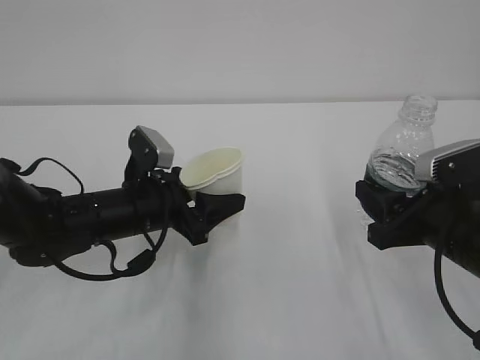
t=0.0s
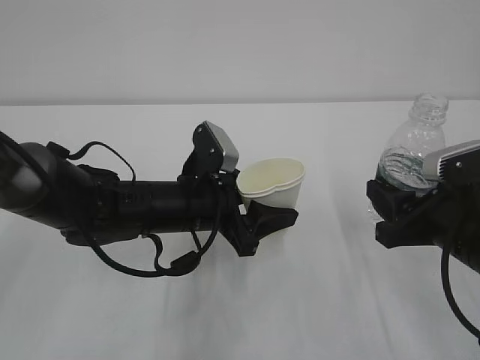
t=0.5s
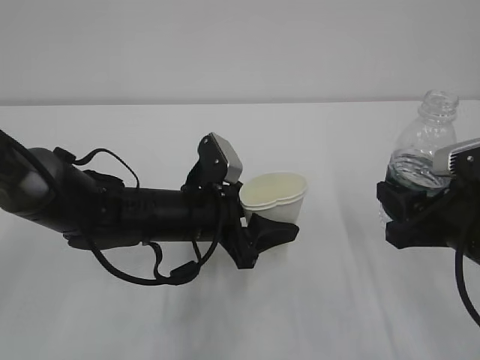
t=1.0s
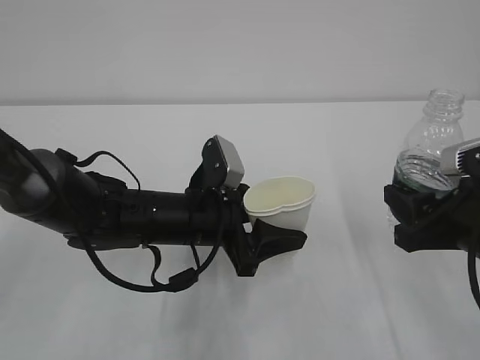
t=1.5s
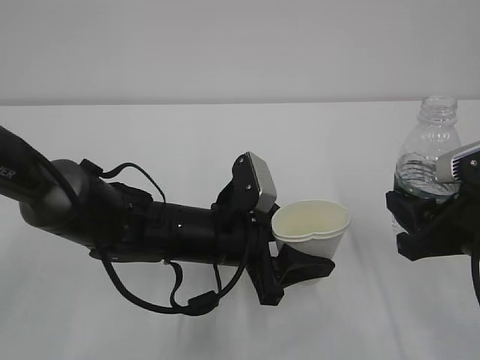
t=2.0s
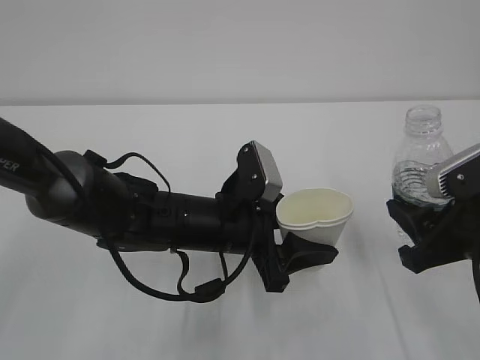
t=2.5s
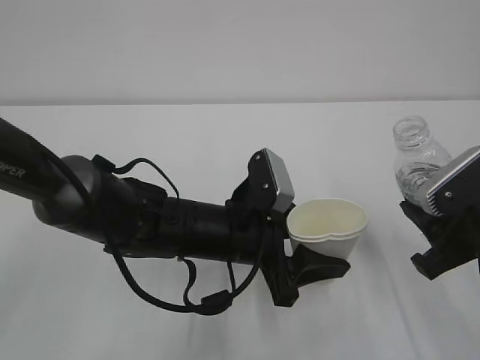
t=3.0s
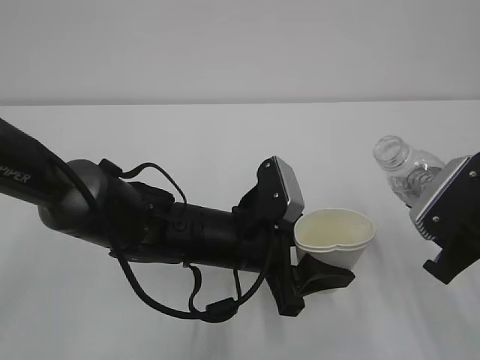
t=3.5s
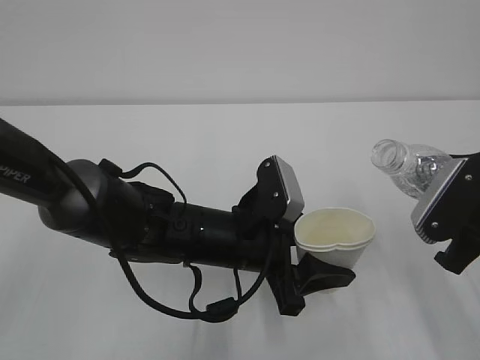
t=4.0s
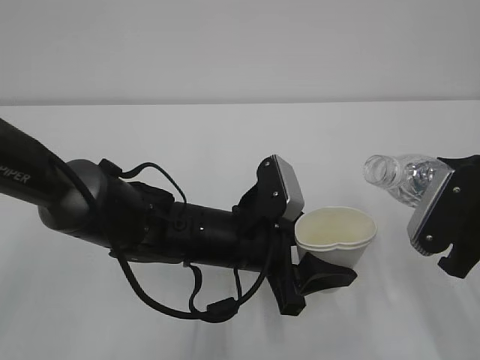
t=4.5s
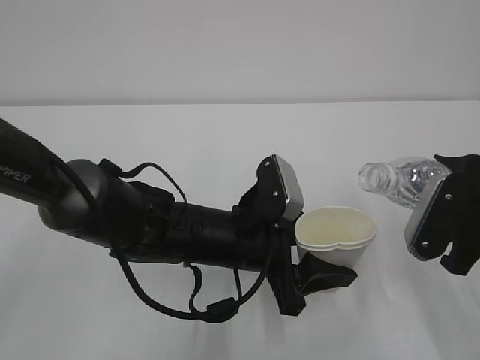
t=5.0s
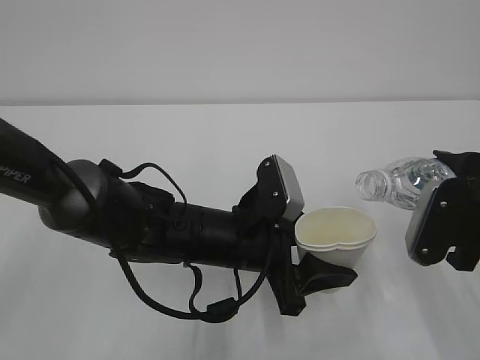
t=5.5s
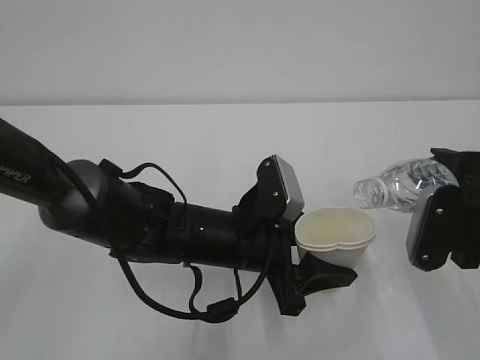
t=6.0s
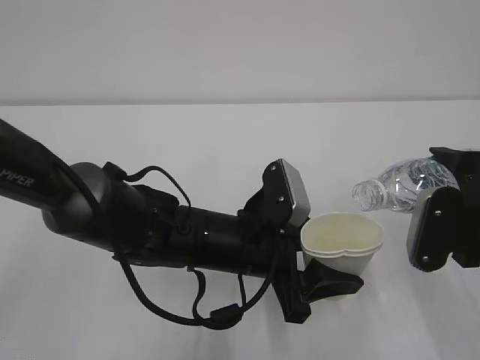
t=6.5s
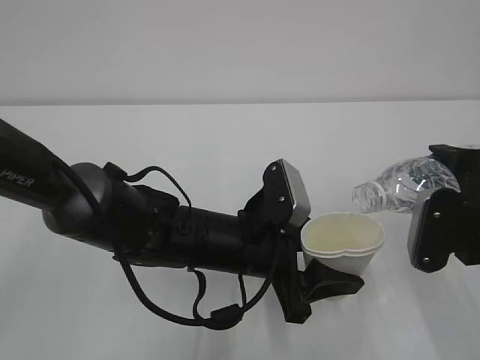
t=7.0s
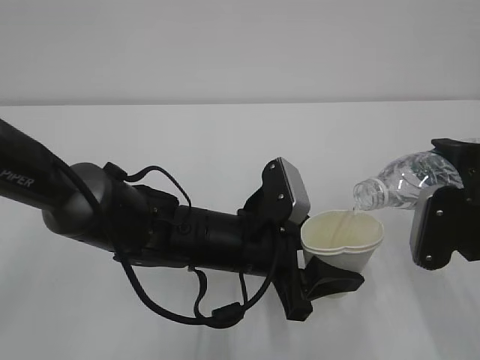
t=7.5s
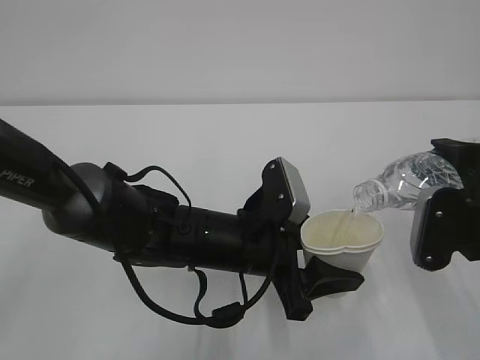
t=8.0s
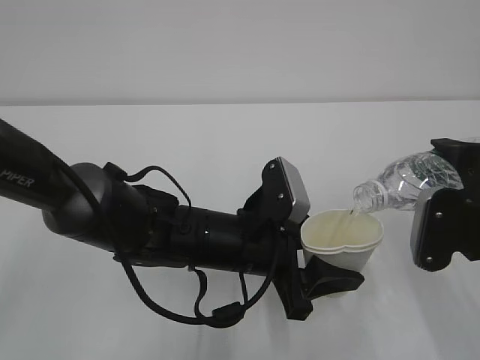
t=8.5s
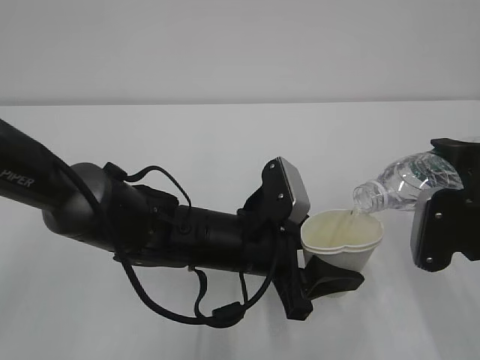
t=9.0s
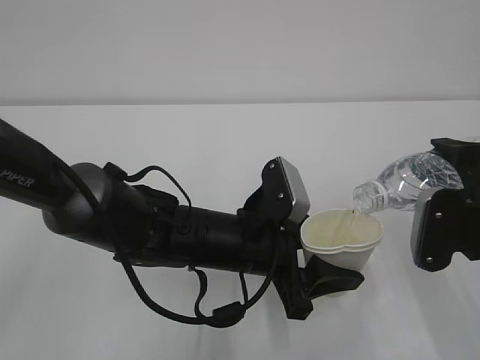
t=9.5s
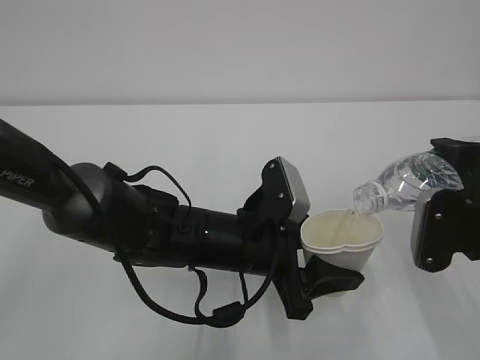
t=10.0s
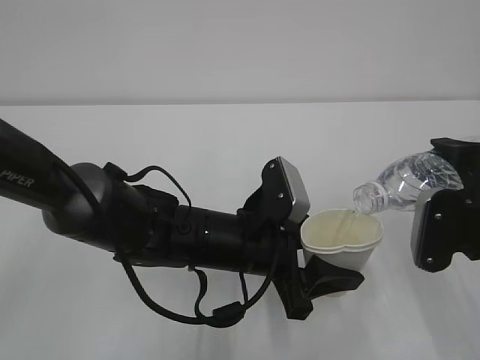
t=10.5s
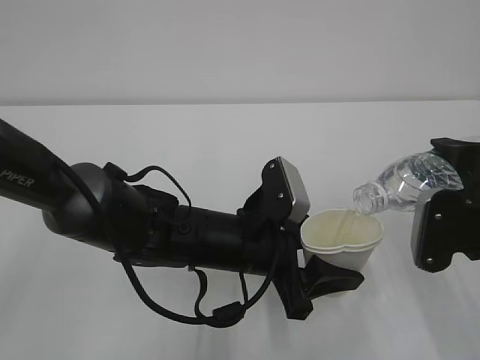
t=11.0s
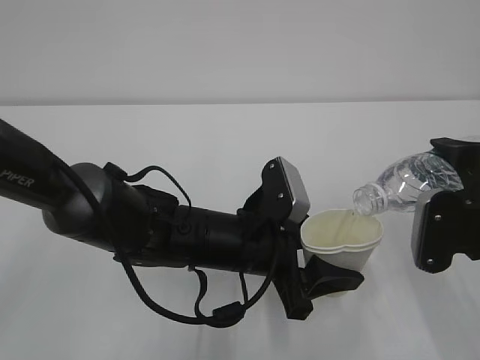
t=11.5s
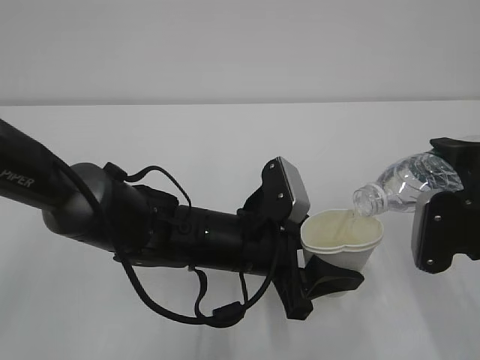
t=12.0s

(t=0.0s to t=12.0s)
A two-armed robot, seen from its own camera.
t=0.0s - t=2.0s: The left gripper is displaced to the right by approximately 10 cm.
t=6.0s - t=8.0s: The grippers move only a little.
t=8.0s - t=12.0s: Both grippers stay about where they are.

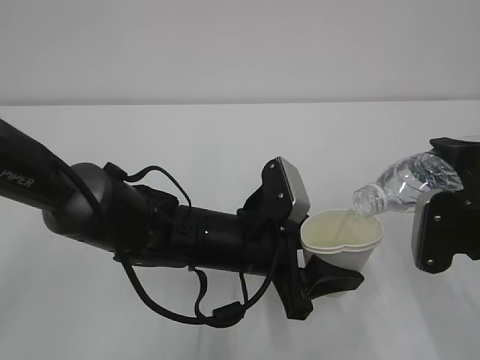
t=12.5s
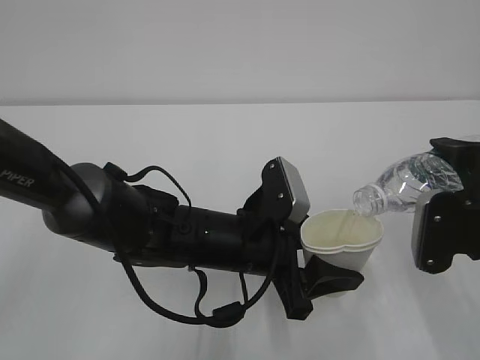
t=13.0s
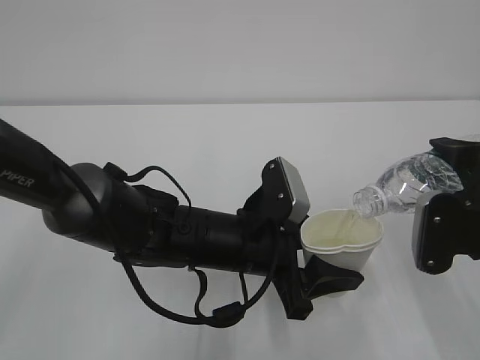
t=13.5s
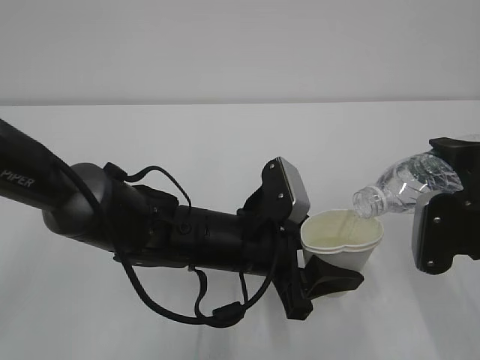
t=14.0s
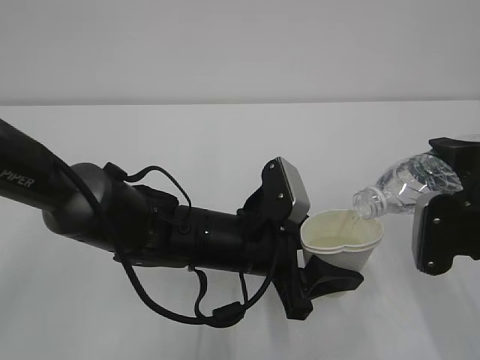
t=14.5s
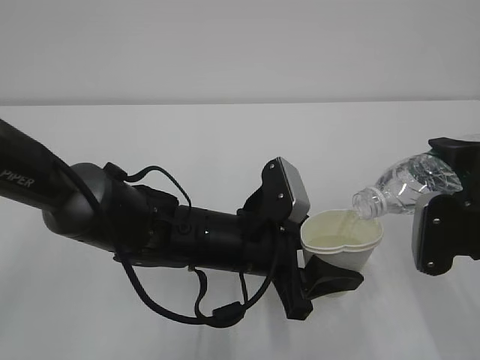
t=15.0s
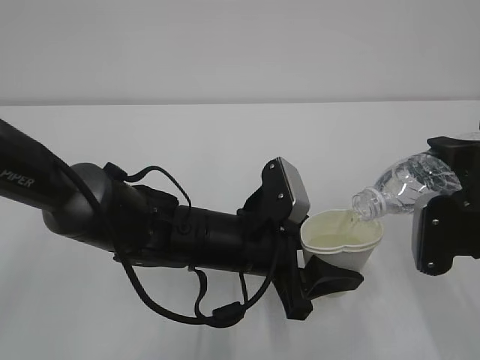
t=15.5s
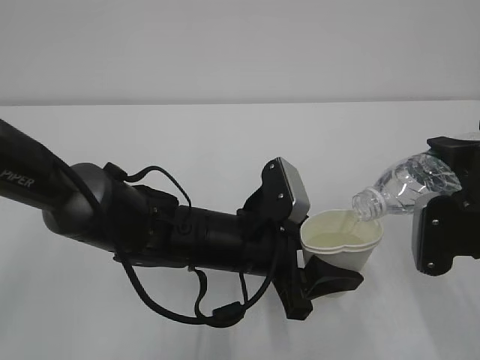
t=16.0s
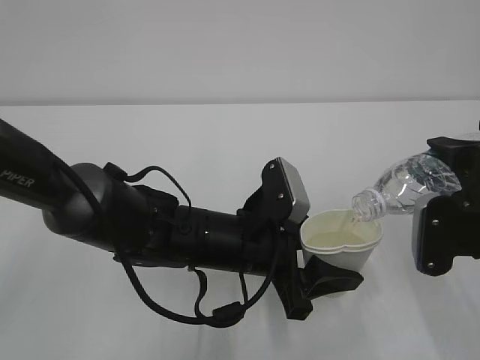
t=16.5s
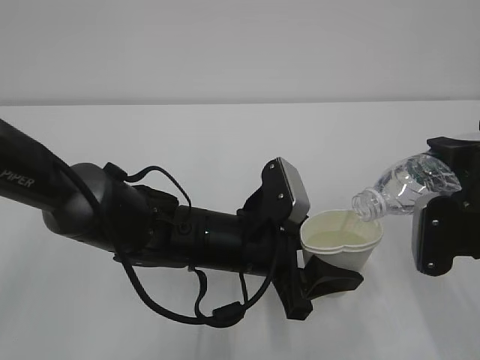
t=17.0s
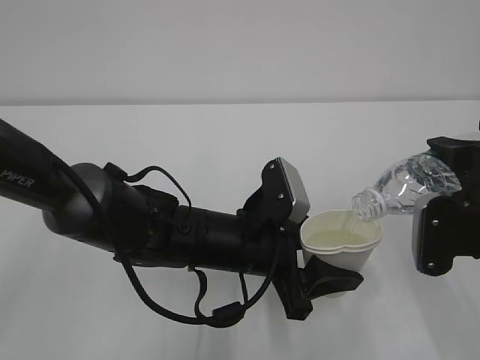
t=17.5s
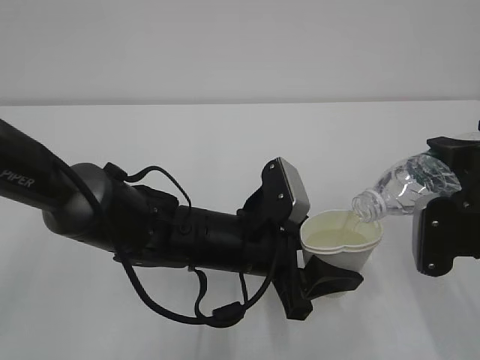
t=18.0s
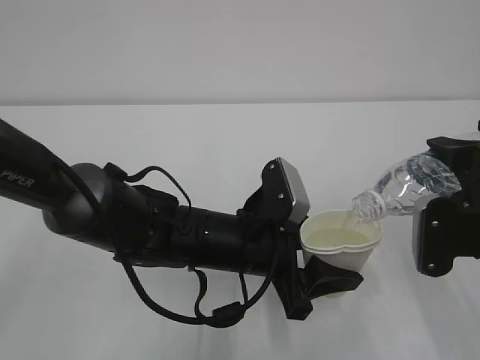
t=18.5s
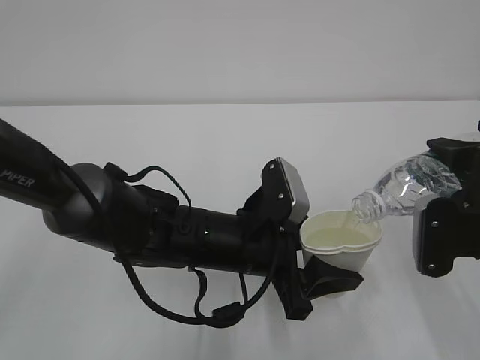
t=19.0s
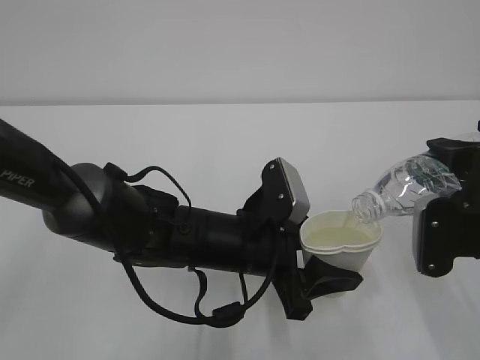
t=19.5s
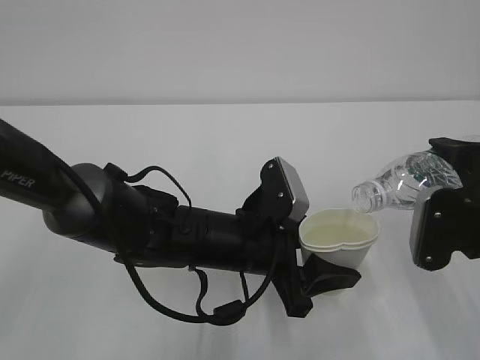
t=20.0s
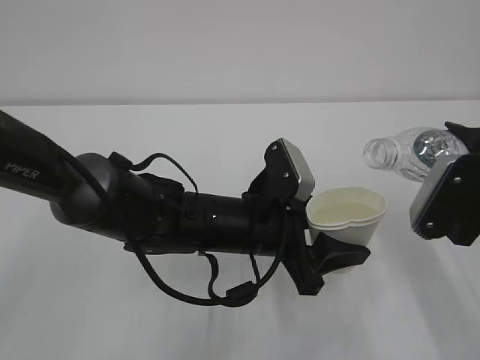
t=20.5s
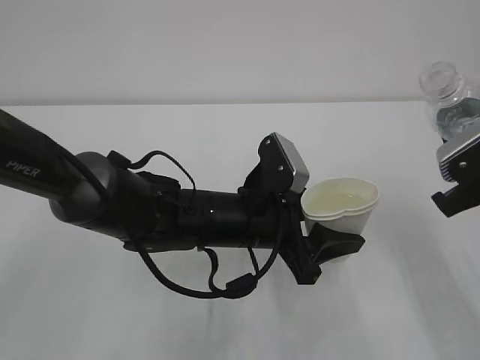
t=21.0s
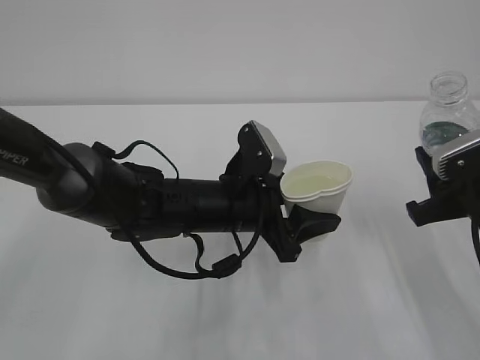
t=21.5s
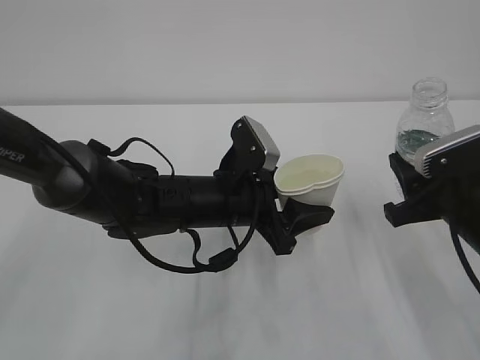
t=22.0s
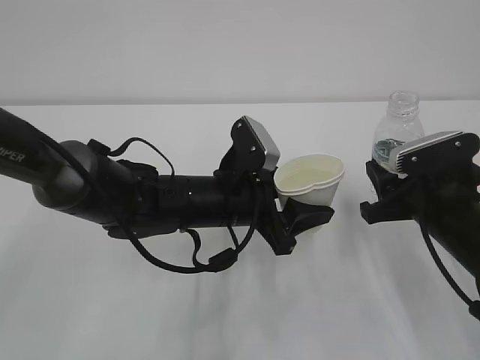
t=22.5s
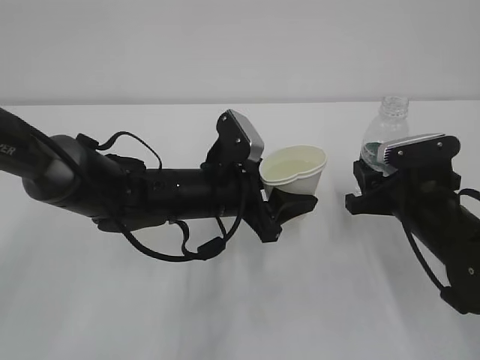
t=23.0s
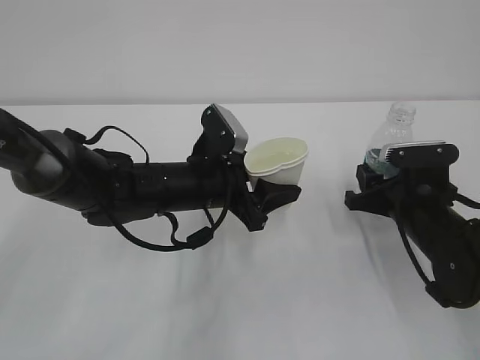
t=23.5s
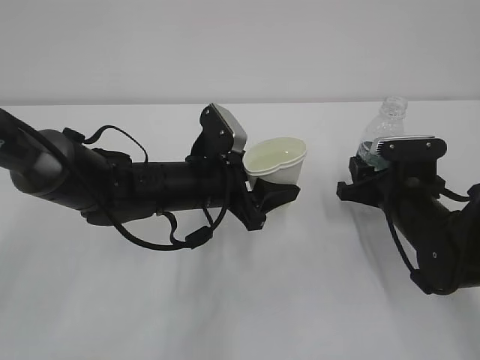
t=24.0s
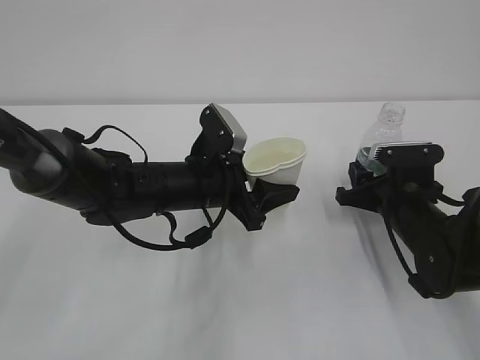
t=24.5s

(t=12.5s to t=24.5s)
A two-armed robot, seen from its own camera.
t=12.5s - t=18.5s: The two grippers keep their place.
t=20.5s - t=22.5s: The right gripper travels downward and forward by some 10 cm.
t=22.5s - t=24.5s: The right gripper moves forward and downward, roughly 10 cm.

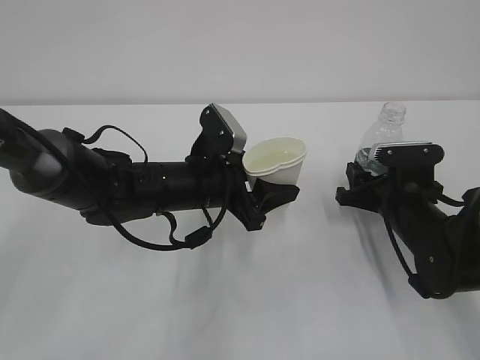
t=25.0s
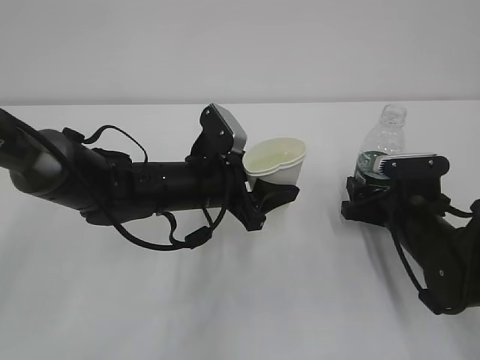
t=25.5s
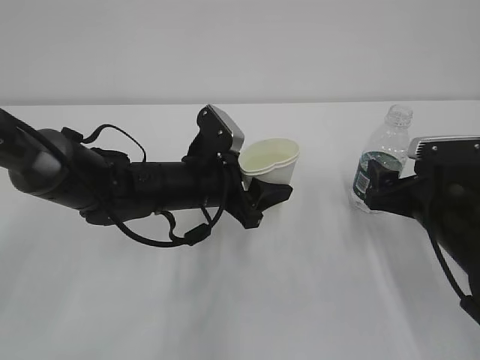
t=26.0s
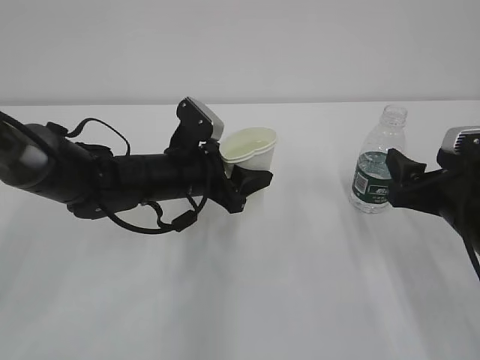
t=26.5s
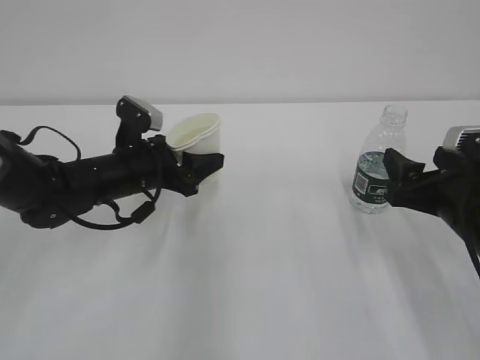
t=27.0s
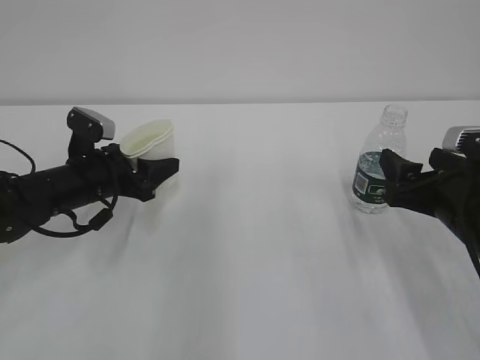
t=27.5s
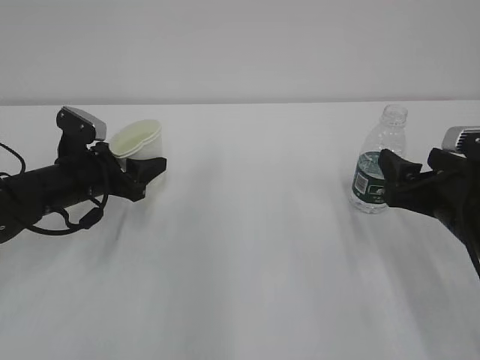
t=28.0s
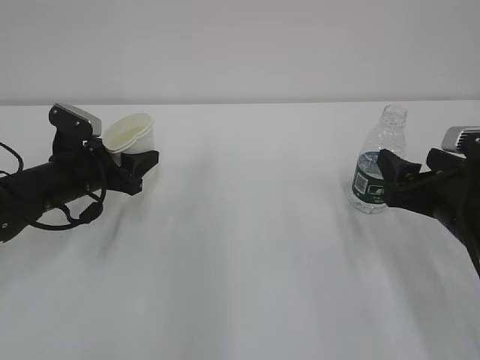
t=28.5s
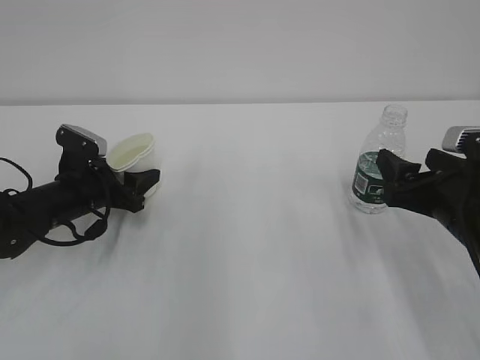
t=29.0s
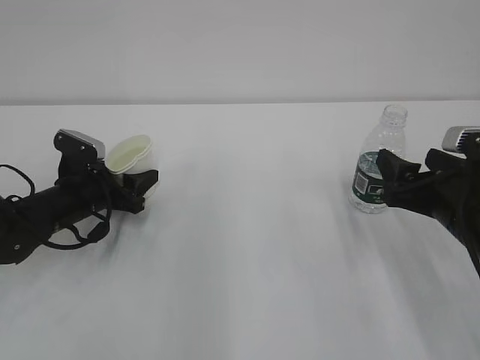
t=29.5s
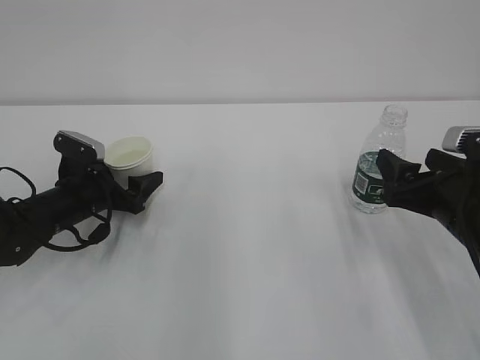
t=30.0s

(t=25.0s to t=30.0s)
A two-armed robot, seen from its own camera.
t=25.0s - t=27.5s: The left gripper is displaced to the left by approximately 15 cm. The right gripper goes some 10 cm backward and upward, and opens.
t=27.5s - t=30.0s: The left gripper ends up roughly 5 cm from where it was, and opens.
